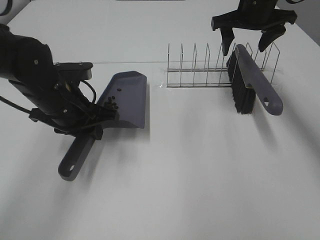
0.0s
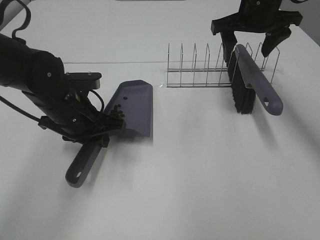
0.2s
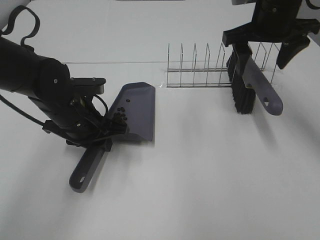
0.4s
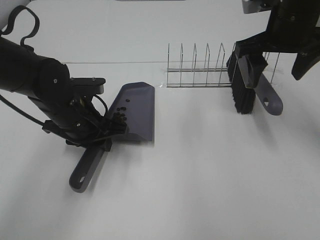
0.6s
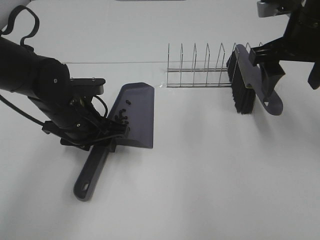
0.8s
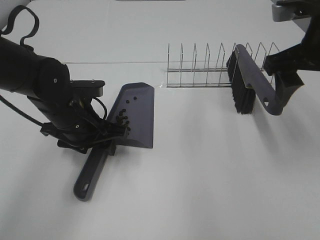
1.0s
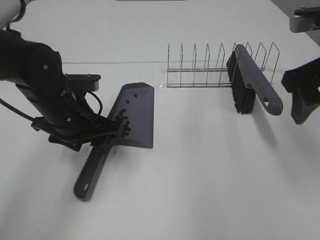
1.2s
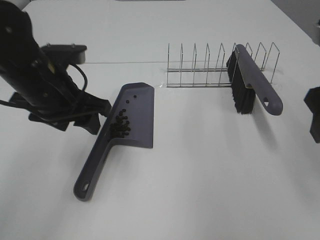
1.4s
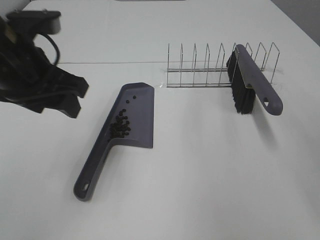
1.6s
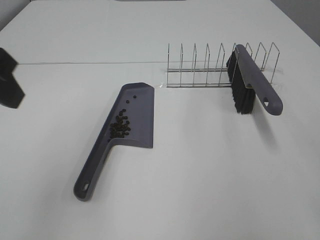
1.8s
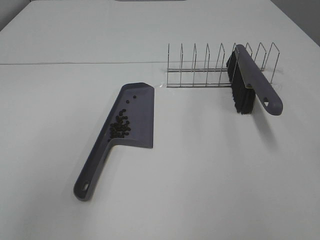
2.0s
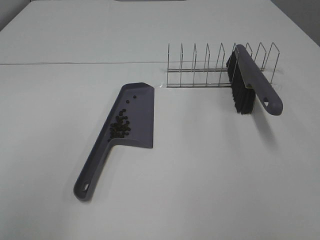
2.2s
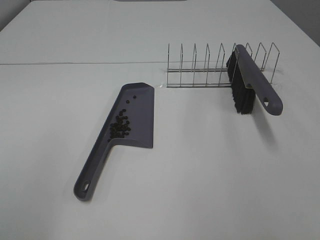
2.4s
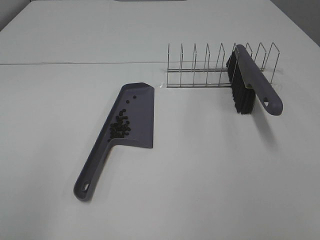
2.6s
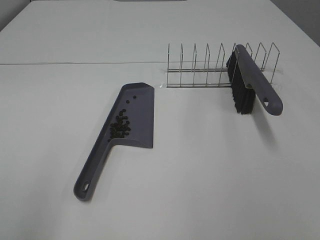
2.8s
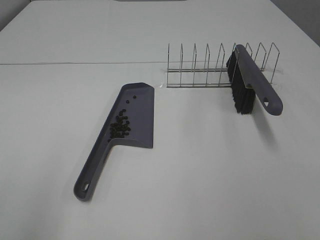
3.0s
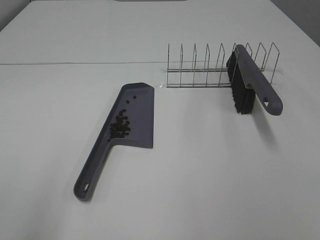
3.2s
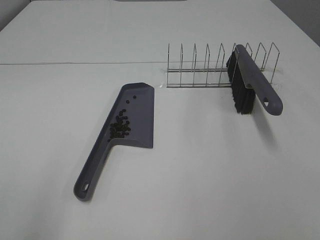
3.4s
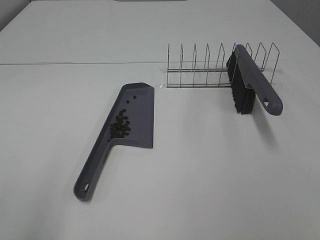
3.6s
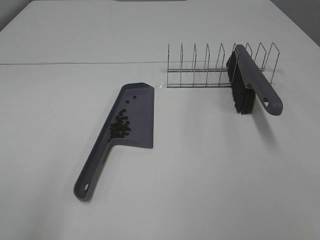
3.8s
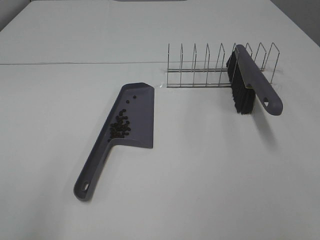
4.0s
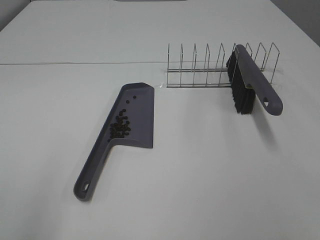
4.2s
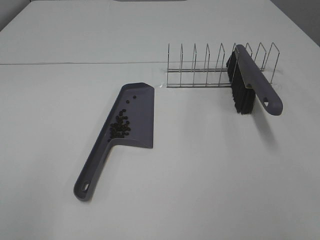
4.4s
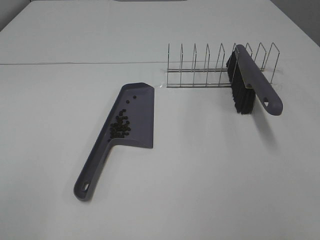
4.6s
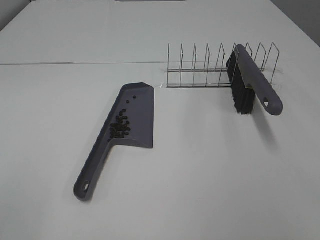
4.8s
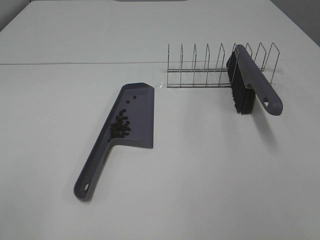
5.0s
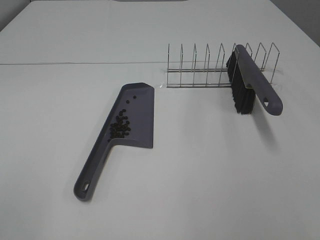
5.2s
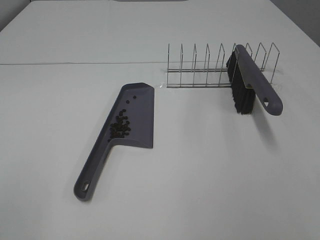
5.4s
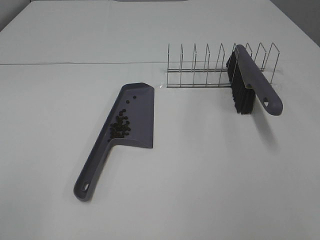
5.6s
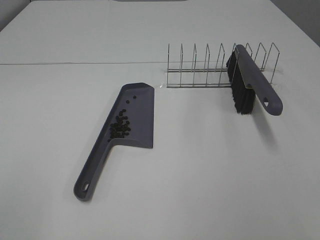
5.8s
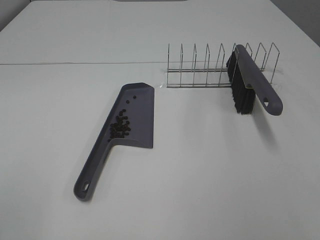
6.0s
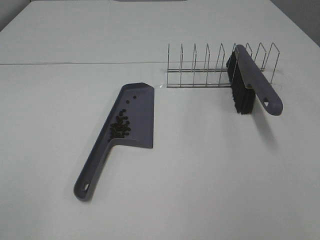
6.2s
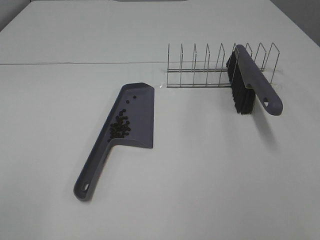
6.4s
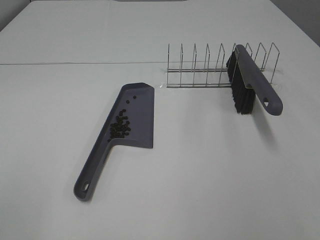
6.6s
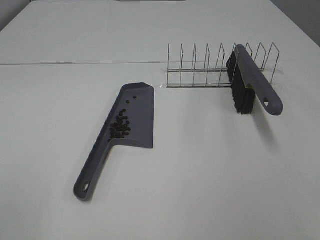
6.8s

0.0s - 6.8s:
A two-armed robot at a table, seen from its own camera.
Task of the whole recording: Sweep Coffee Bean.
Step, 0.0s - 1.2s: Left hand:place the dustpan on the table.
0.0s - 1.4s: The left gripper is displaced upward by roughly 5 cm, and opens its fingers. The right gripper goes approximately 25 cm backward.
1.4s - 2.8s: The left gripper goes roughly 25 cm backward and to the left. Meanwhile the right gripper heads backward, covering some 15 cm.
5.4s - 6.8s: The two grippers keep their place.

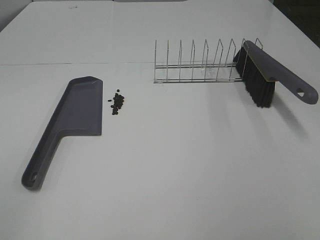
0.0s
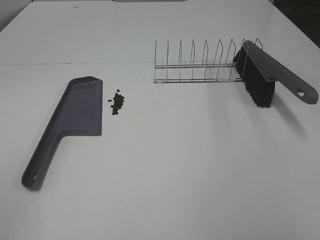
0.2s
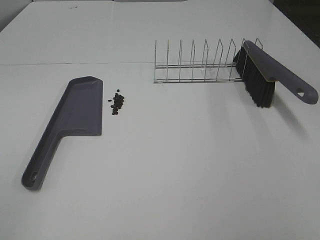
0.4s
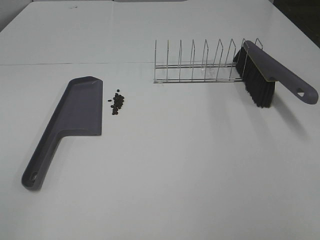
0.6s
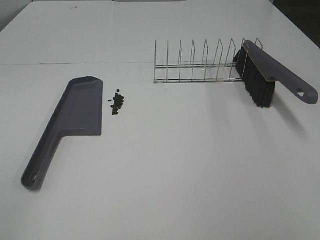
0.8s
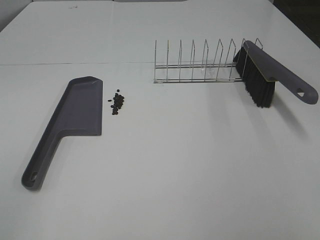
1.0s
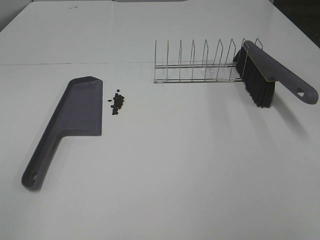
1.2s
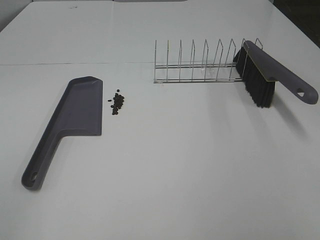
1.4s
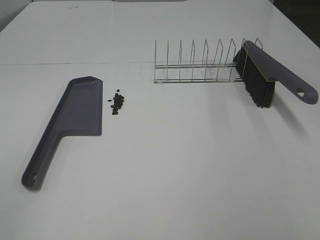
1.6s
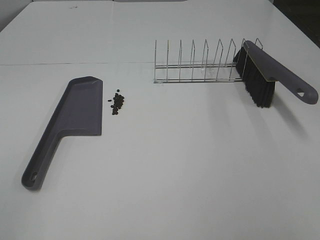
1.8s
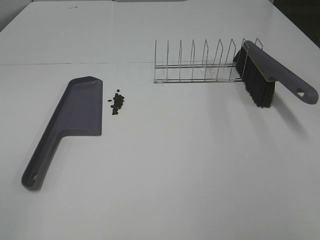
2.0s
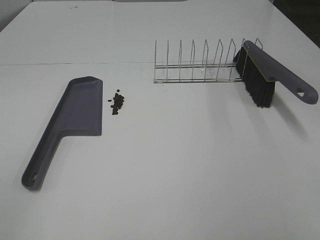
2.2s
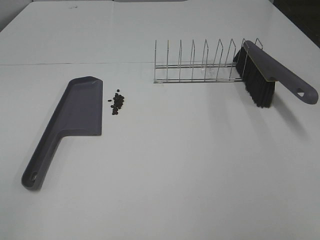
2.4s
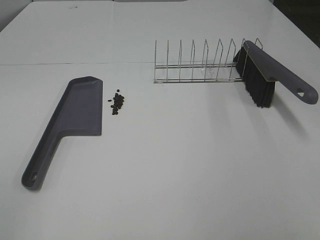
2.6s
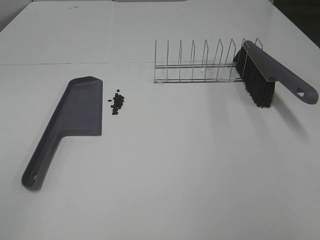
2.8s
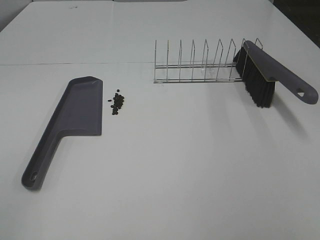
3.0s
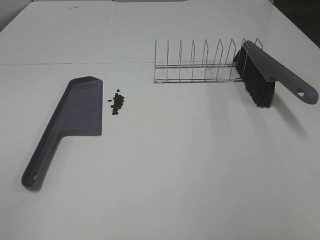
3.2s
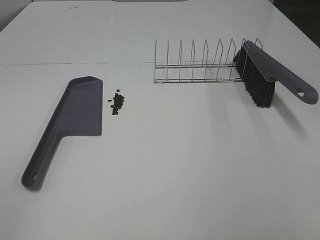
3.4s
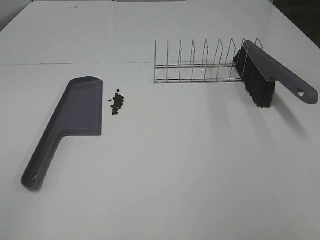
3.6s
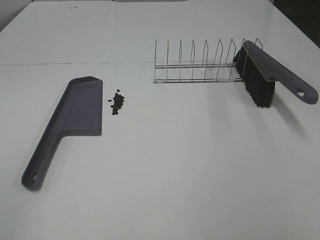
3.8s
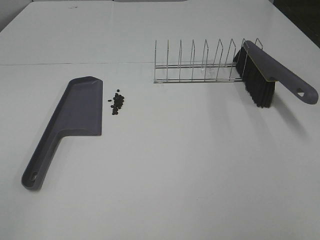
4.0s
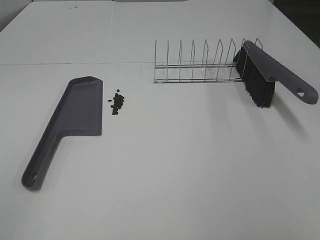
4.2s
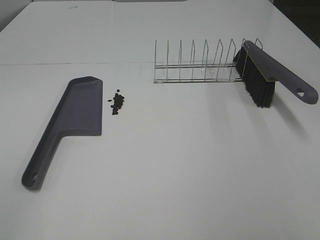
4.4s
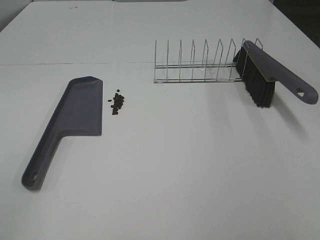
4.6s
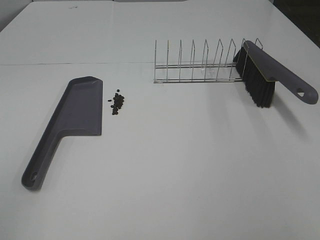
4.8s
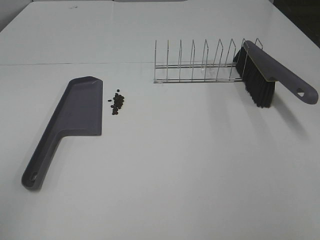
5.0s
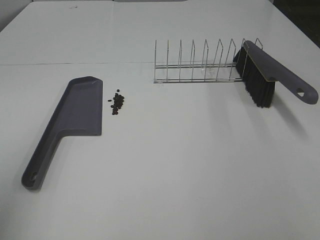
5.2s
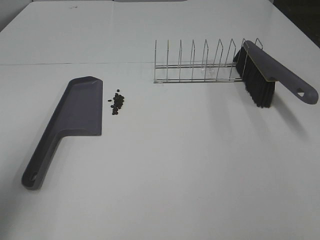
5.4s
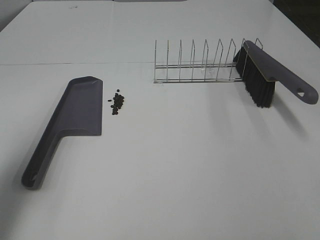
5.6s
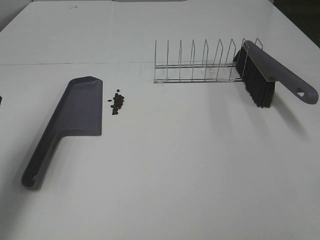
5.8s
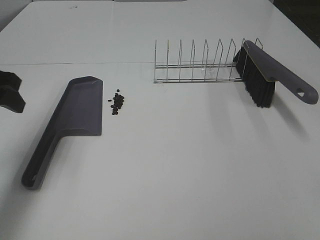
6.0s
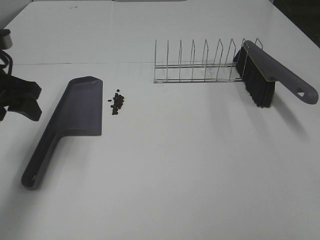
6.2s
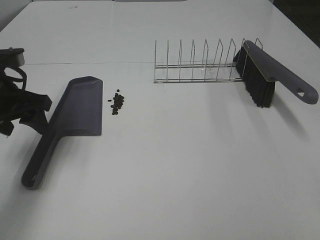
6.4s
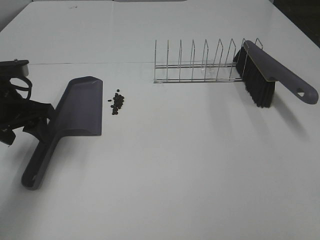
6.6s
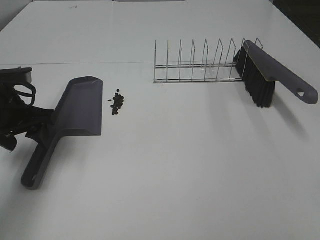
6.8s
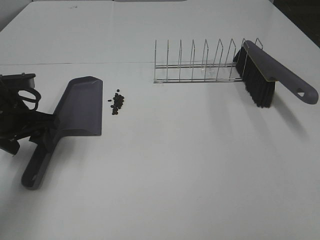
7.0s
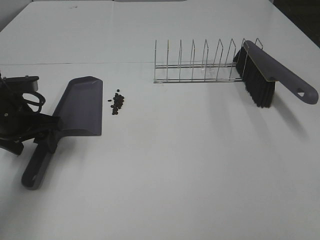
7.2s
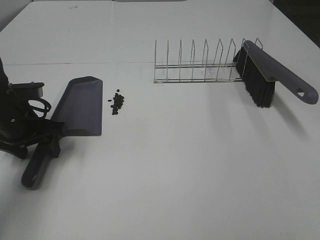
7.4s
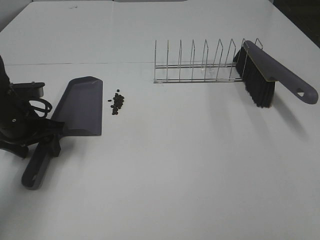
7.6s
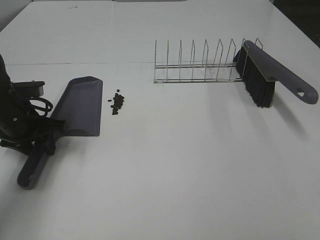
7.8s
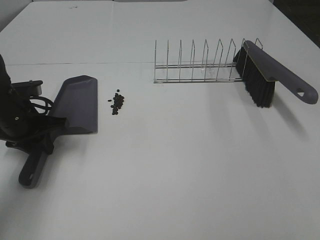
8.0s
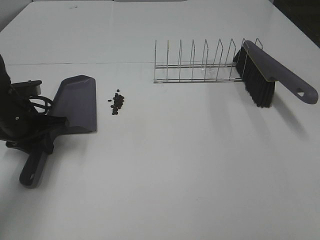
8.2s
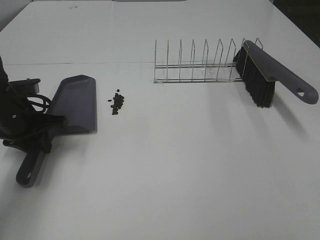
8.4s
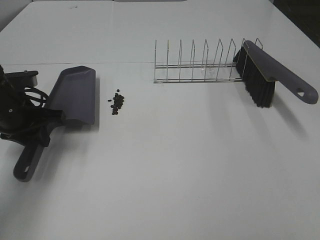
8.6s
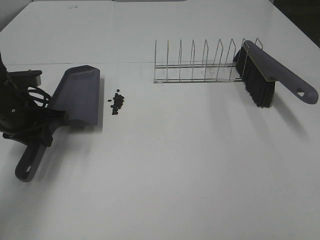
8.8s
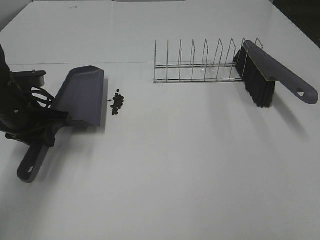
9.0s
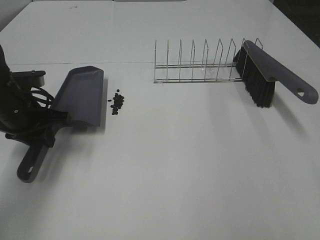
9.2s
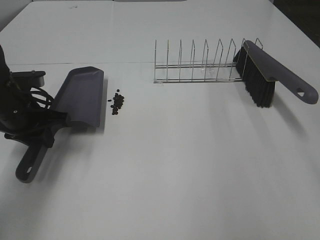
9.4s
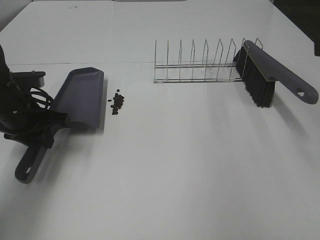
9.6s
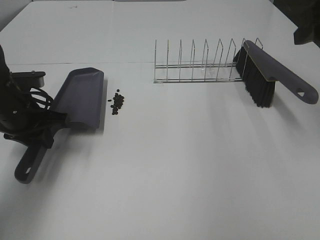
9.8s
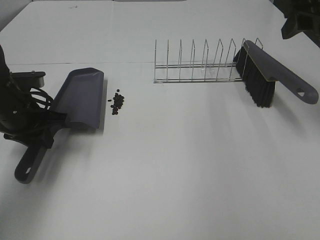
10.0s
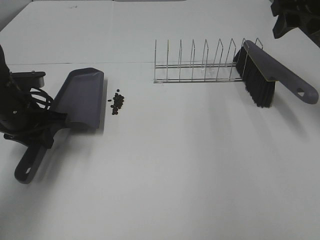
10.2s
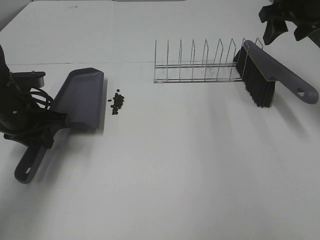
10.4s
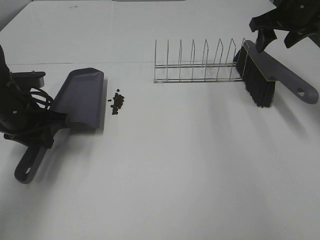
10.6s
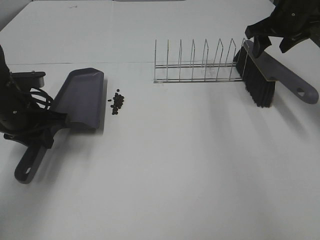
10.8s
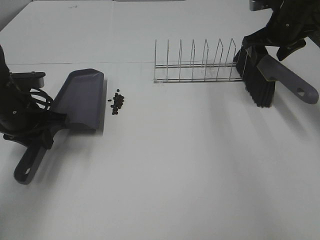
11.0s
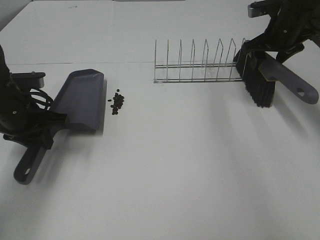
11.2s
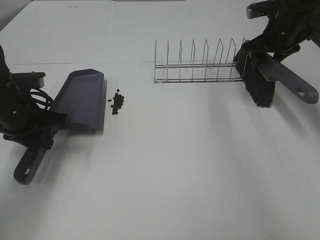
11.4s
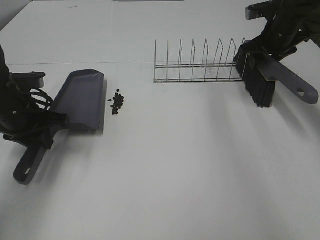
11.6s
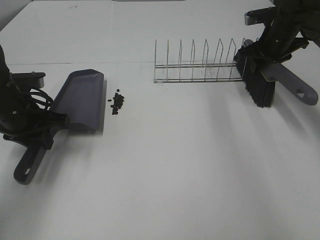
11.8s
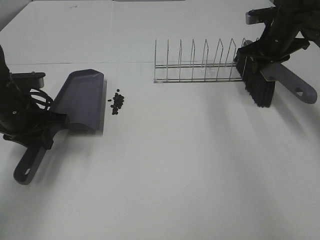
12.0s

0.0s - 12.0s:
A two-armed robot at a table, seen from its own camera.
Task of the whole recording: Sweep Coffee Bean.
Step, 0.0s - 8.0s: Left hand: grab the dustpan.
0.0s - 4.4s: Both grippers stay put.
4.4s - 6.0s: The left gripper is displaced forward by approximately 30 cm.
6.0s - 7.6s: The left gripper shifts roughly 15 cm downward.
7.6s - 9.0s: The left gripper closes up.
9.0s - 10.4s: The right gripper goes about 40 cm forward.
10.4s - 12.0s: The right gripper shifts approximately 15 cm downward and forward, and closes up.

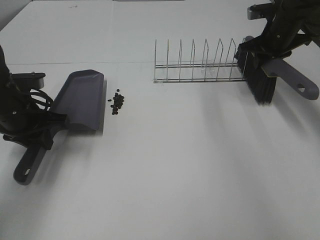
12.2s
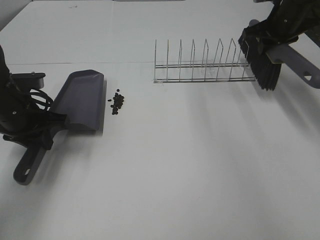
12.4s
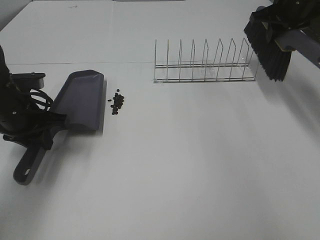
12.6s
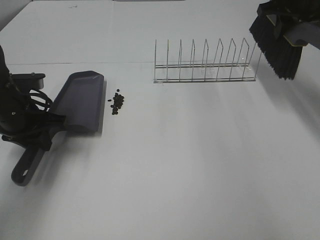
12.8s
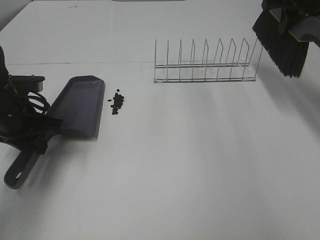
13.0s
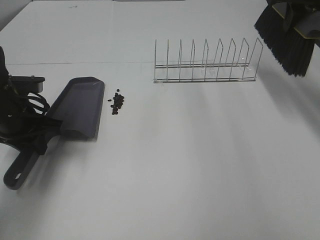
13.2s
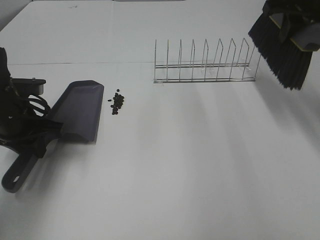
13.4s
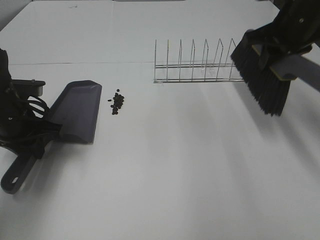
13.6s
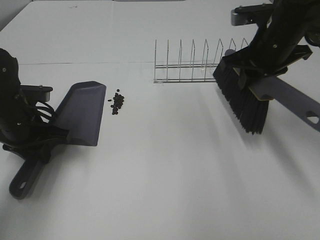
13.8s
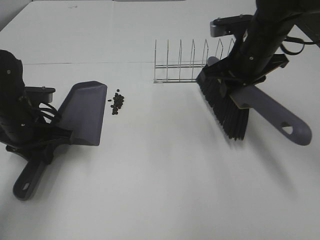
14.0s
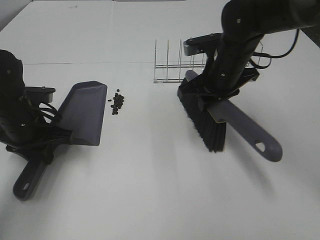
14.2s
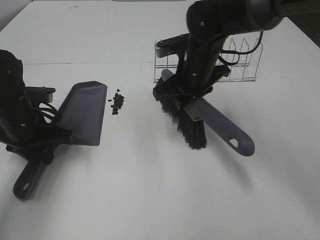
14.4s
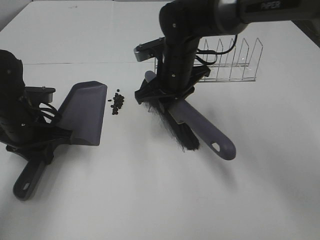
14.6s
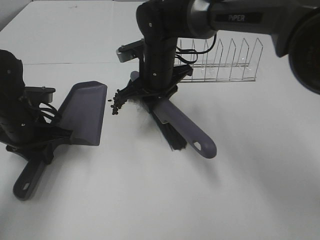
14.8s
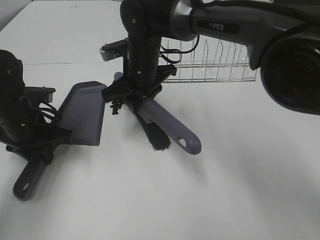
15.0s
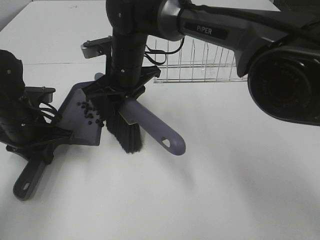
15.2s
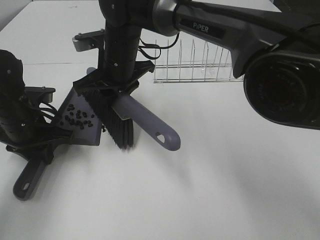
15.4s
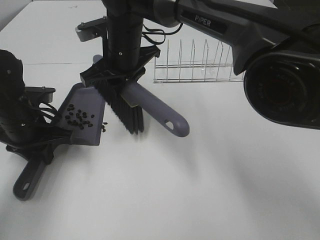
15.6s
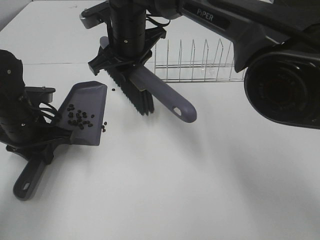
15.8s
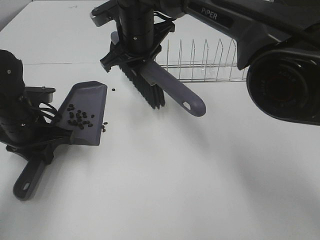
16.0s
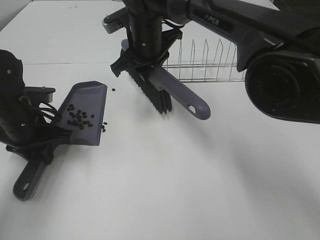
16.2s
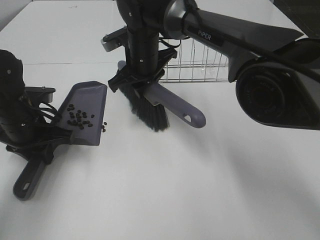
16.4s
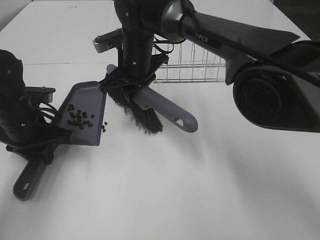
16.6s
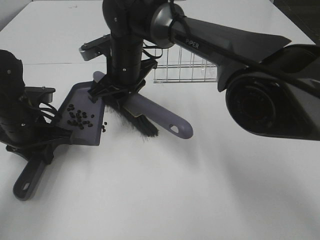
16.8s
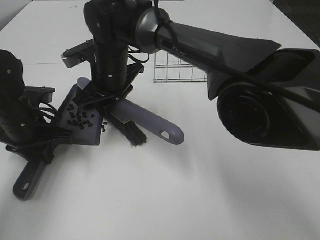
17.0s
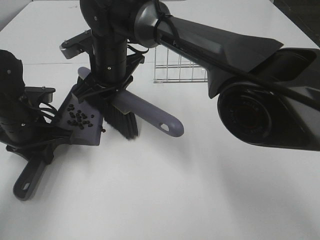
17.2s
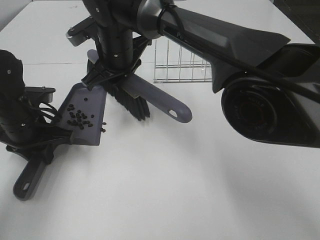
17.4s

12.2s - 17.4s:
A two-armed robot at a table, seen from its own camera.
Task of the whole recording: Sweep Coffee Bean.
12.2s - 14.0s: The right gripper shifts roughly 20 cm backward and to the left, and goes upward and returns, about 15 cm each way.
14.0s - 15.6s: The right gripper goes about 20 cm to the left.
